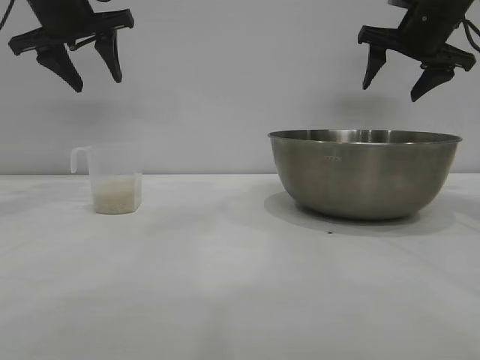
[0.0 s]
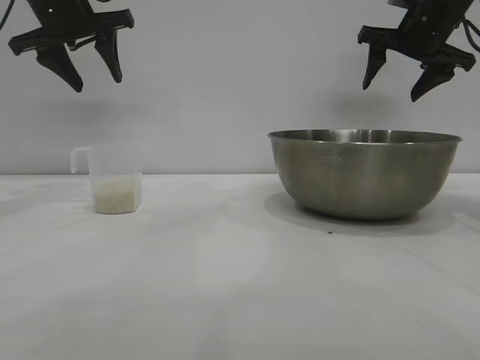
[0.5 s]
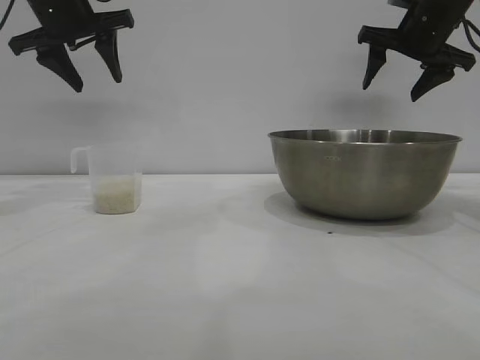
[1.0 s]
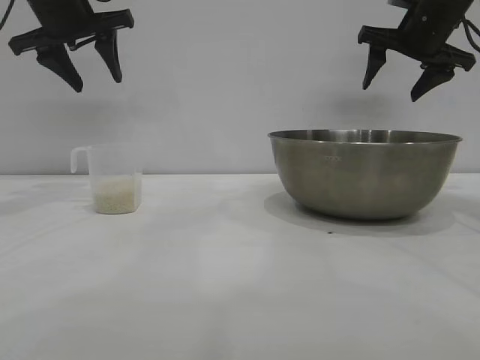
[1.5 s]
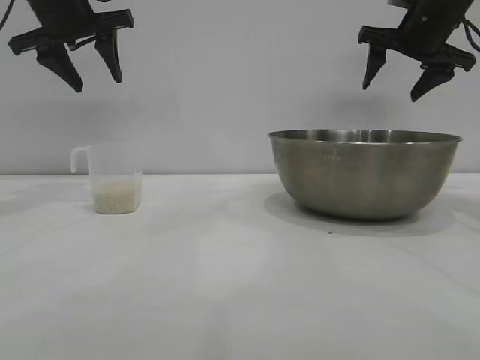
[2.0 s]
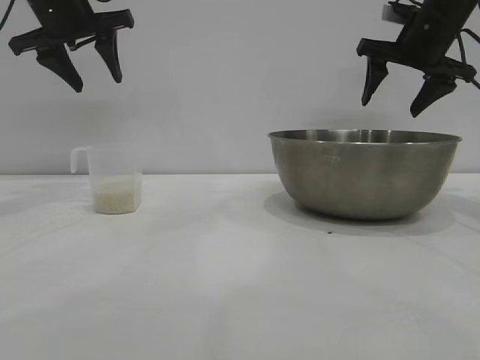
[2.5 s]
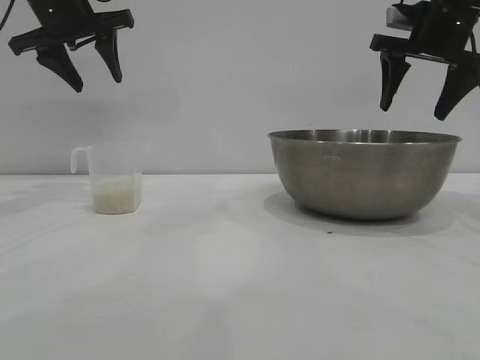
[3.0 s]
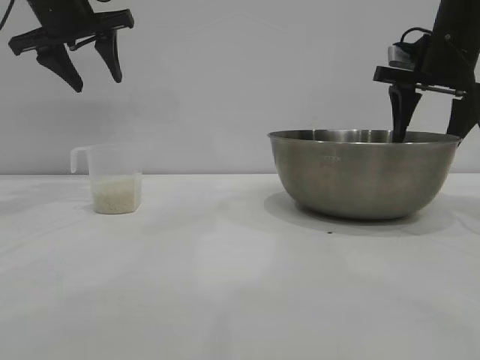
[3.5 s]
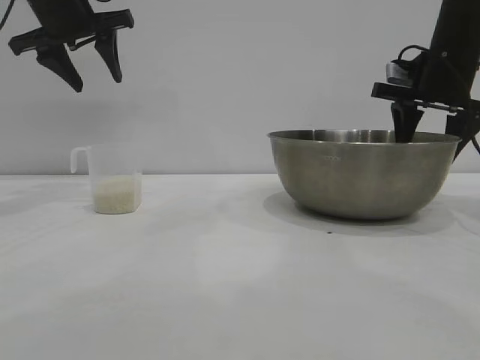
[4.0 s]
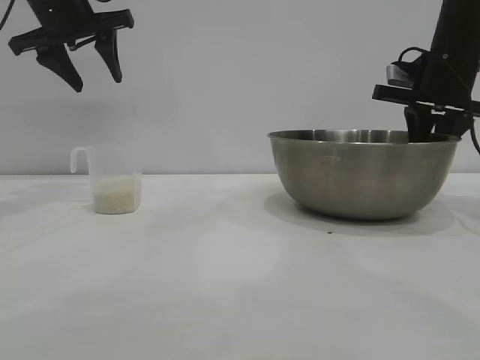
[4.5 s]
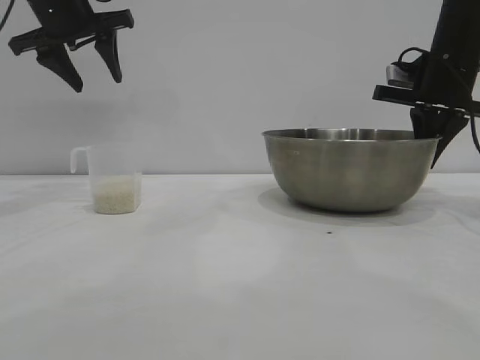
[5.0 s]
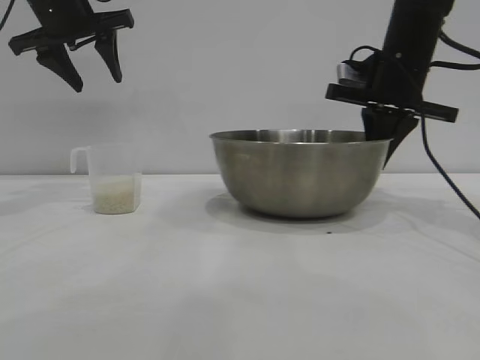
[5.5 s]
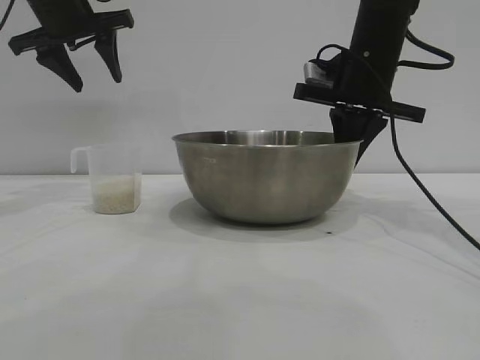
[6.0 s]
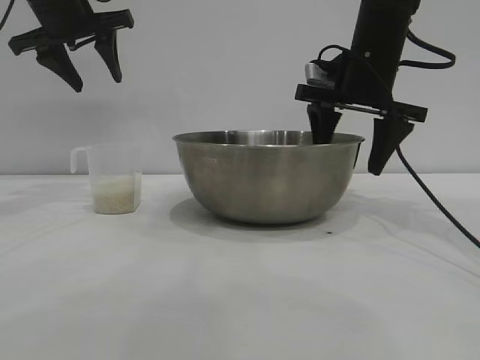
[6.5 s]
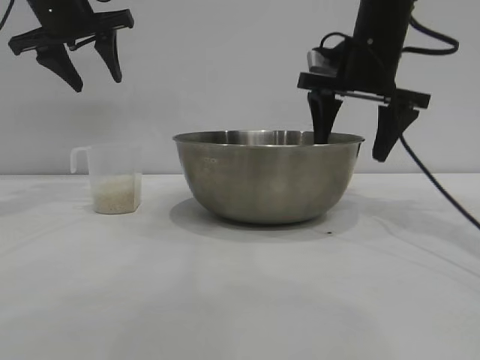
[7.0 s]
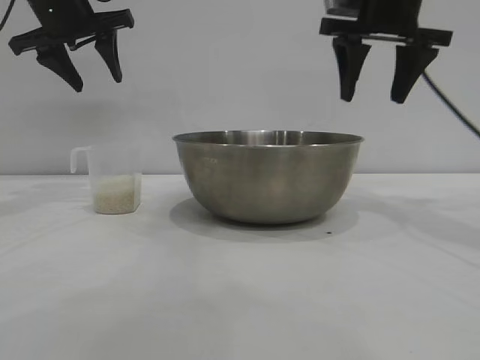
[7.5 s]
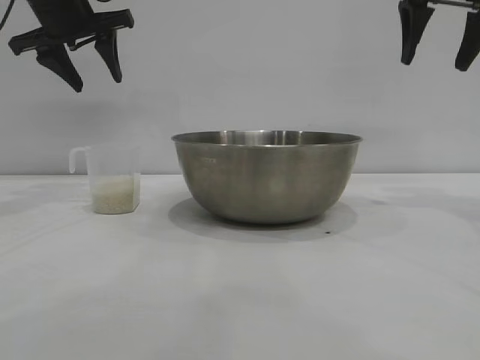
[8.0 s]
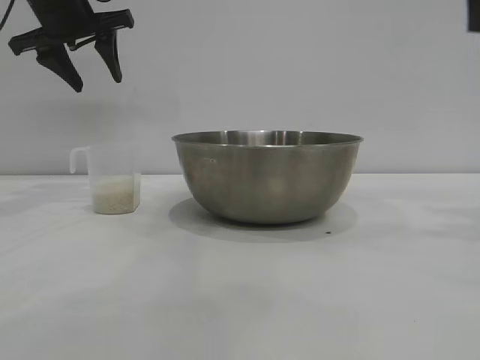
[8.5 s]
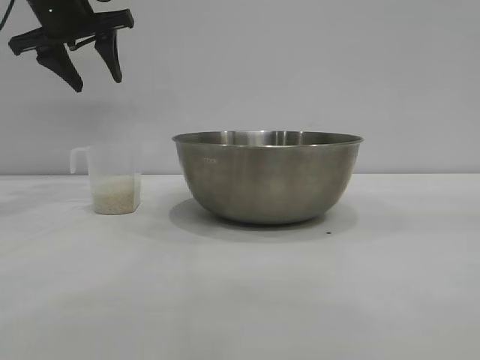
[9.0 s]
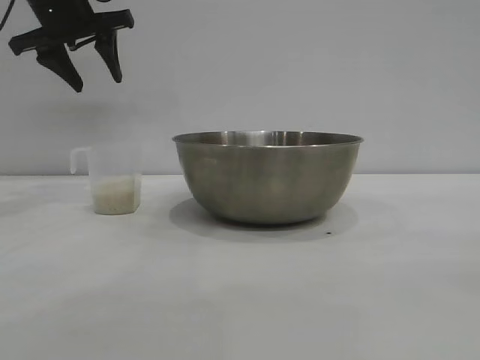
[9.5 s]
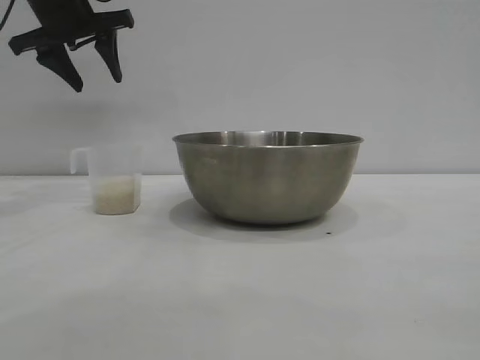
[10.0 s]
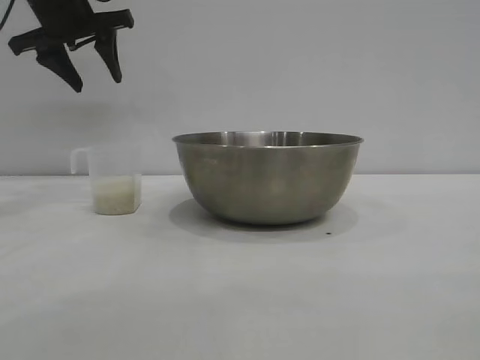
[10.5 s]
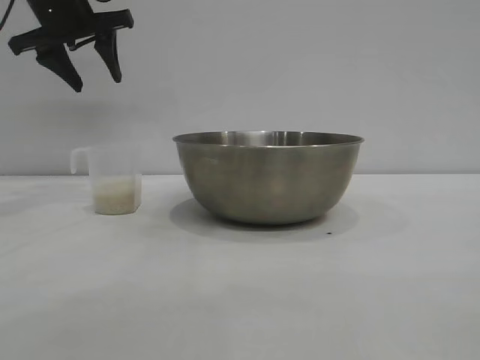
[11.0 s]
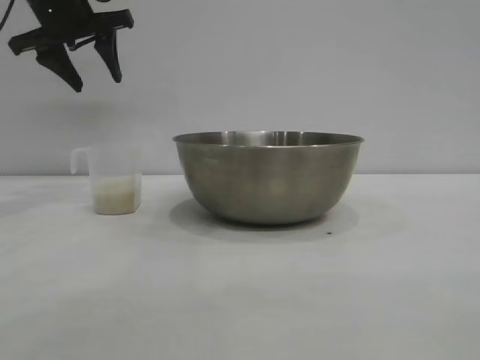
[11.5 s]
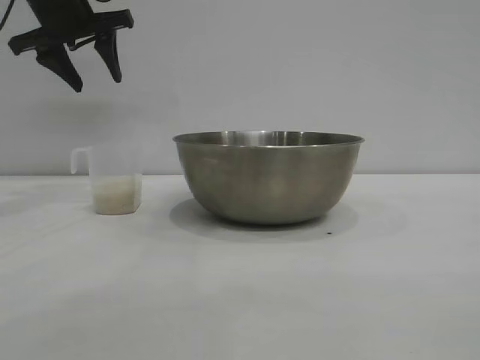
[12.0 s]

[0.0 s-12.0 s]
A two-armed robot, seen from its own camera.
Task of the whole recording: the right gripper grasp the rice container and place it in the center of the table, the left gripper grasp the rice scoop and pour the rice into the rice container.
Step, 0.0 to 7.0 s: Move the bowl to the center of view with the right gripper.

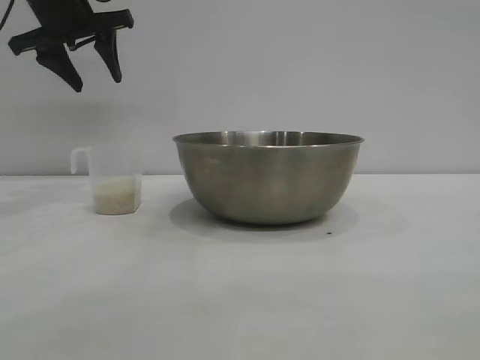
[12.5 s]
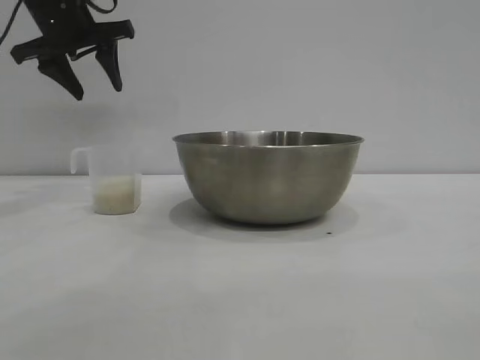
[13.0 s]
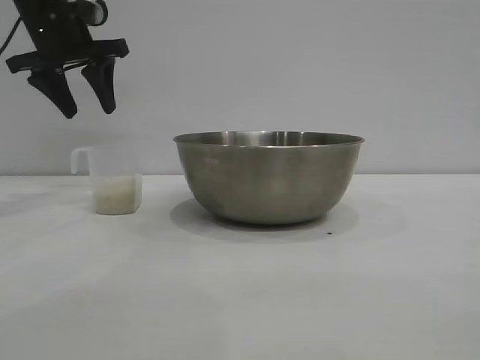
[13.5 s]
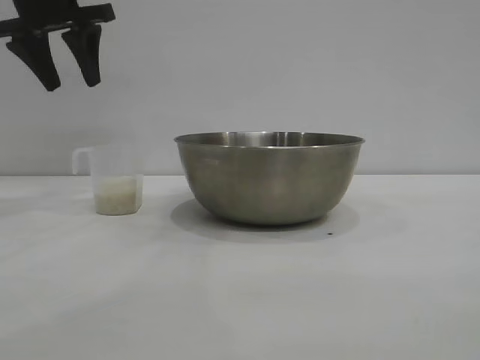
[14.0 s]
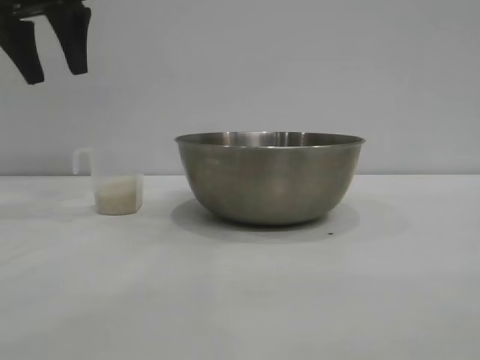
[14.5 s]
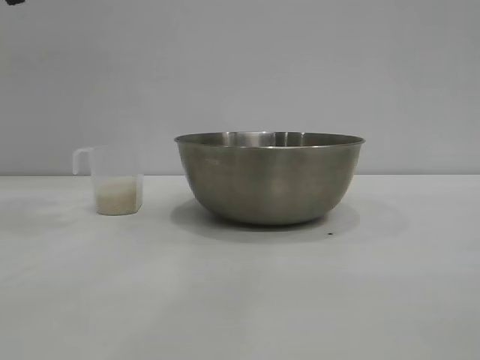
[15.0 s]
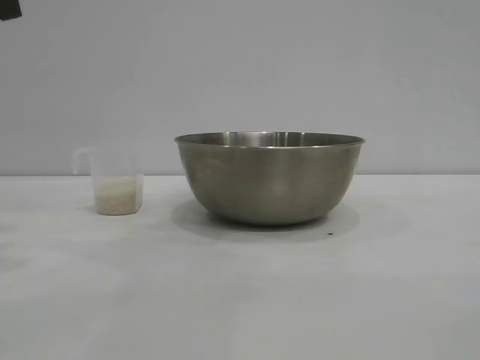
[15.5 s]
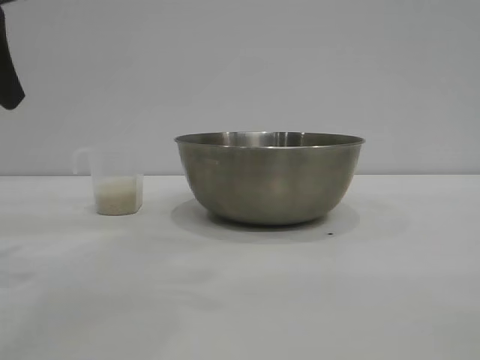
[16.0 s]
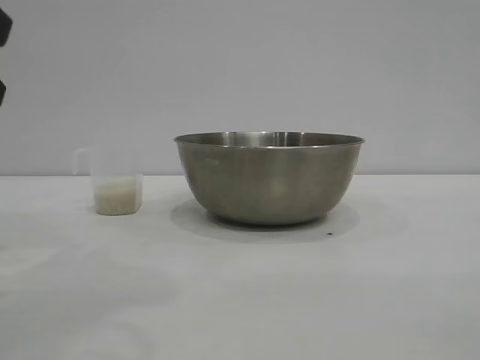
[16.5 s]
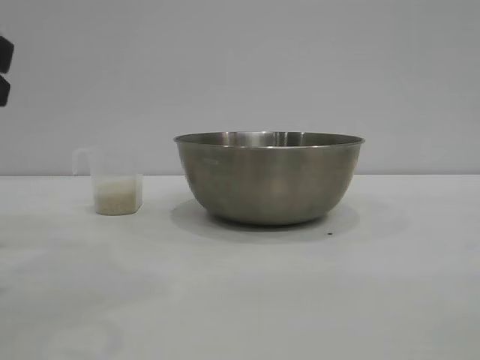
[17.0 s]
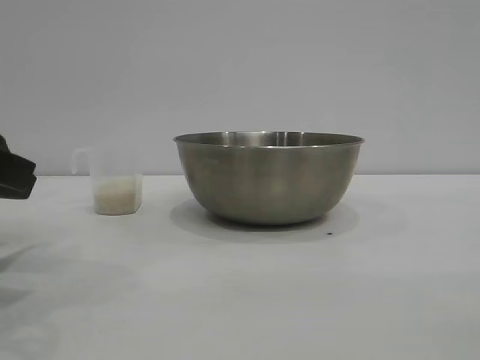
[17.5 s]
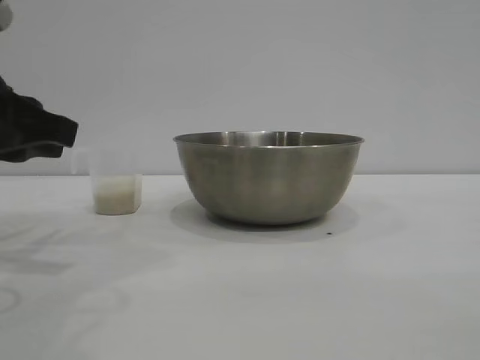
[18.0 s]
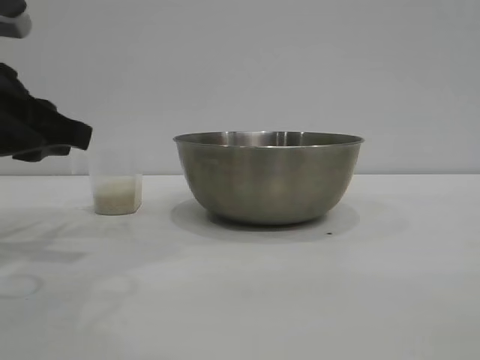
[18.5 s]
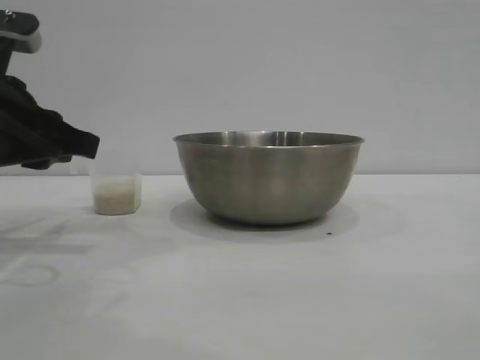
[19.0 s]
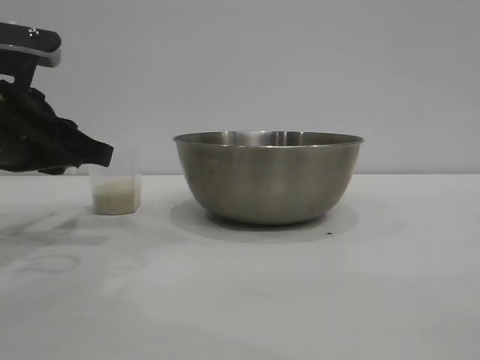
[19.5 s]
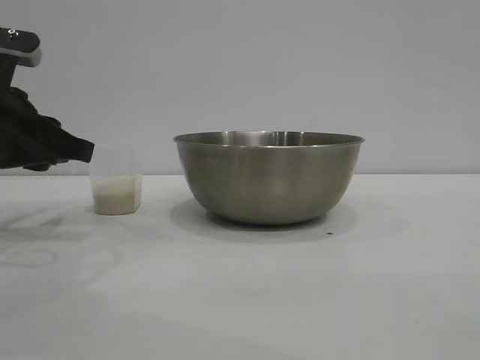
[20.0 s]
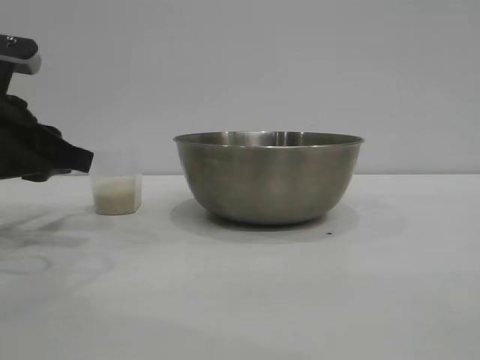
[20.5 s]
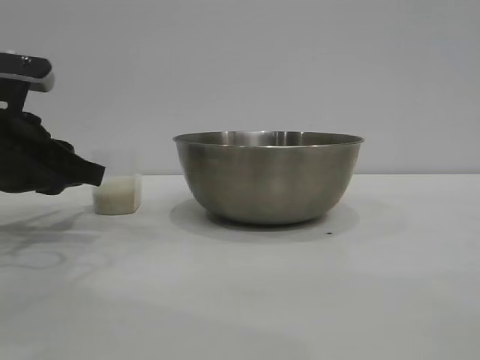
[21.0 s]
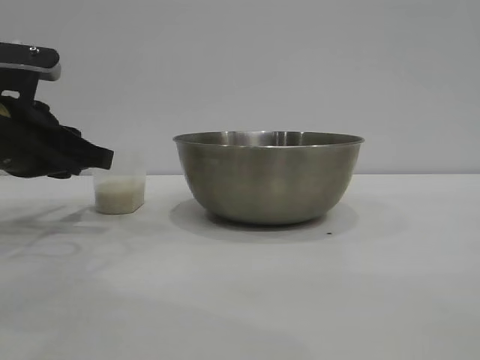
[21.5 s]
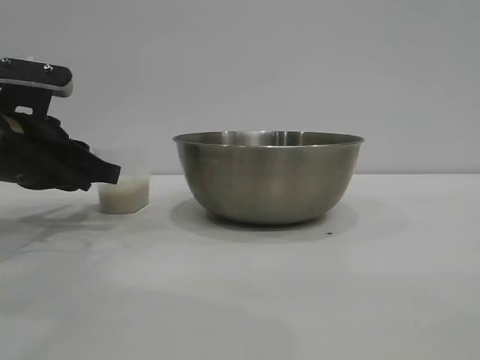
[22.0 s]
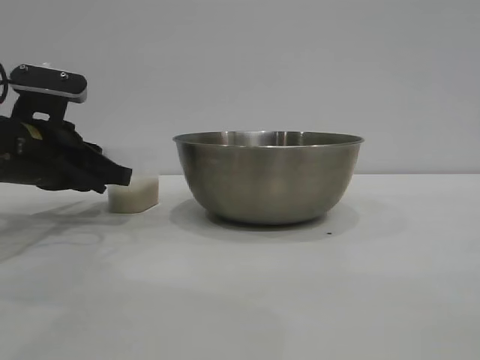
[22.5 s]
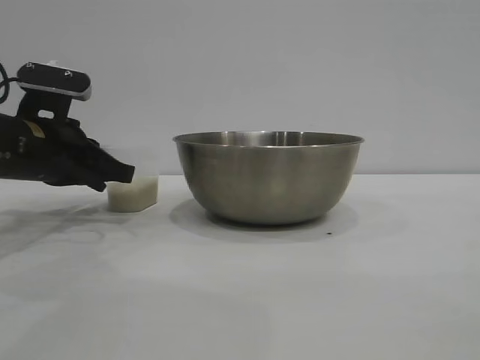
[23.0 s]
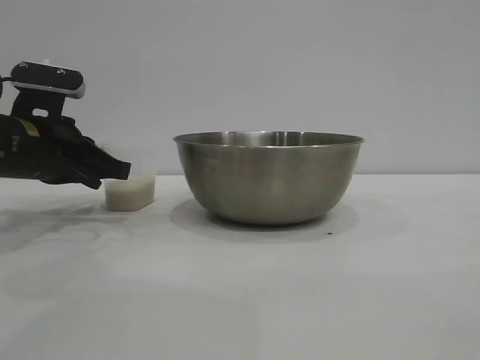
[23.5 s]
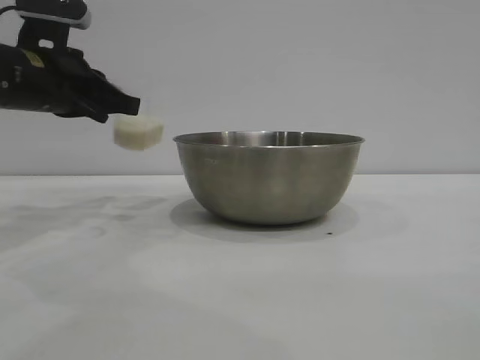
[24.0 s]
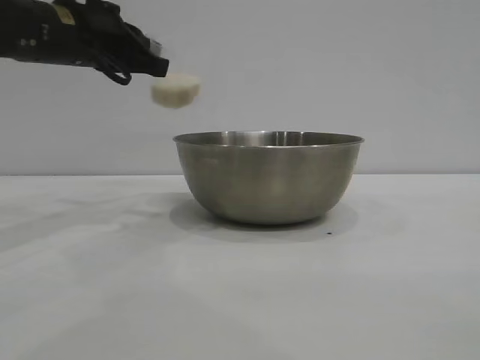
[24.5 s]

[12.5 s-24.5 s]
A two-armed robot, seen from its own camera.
Task of the whole recording: the right gripper grasp the rice container and place it in the center of the table, the left gripper grasp the rice scoop and pour the rice into the rice container.
Step, 12.5 to 24.0 s: Pick up the cup with rice in it with the left gripper.

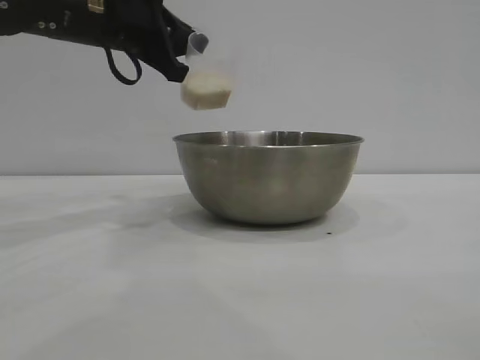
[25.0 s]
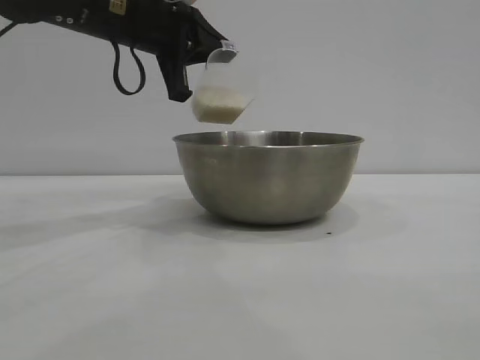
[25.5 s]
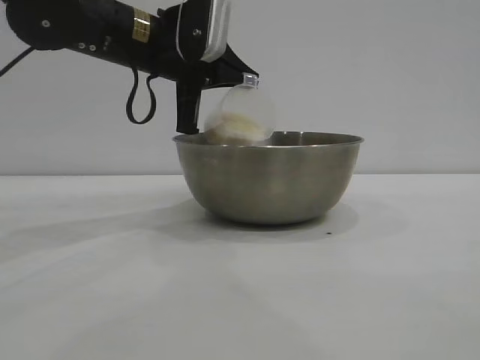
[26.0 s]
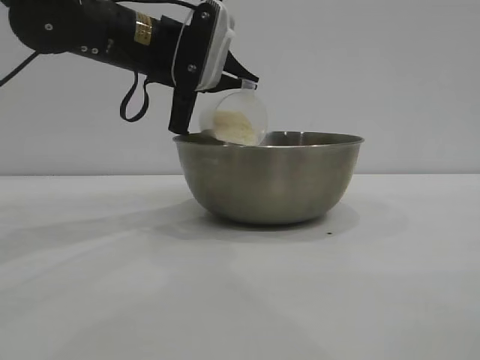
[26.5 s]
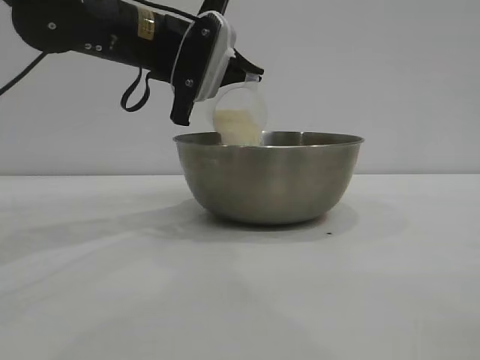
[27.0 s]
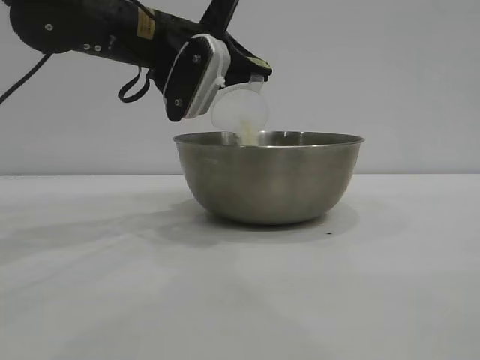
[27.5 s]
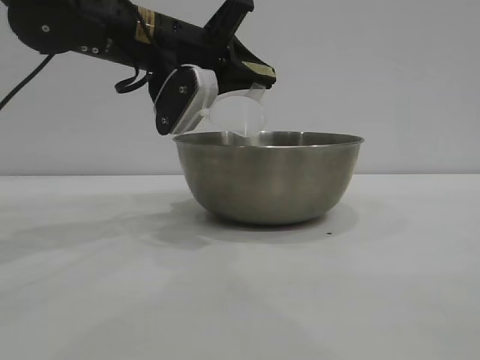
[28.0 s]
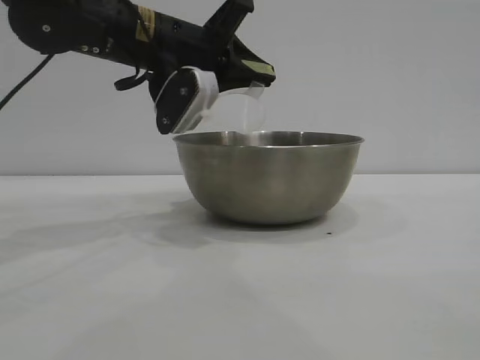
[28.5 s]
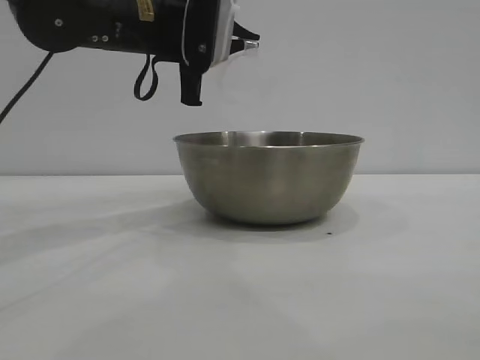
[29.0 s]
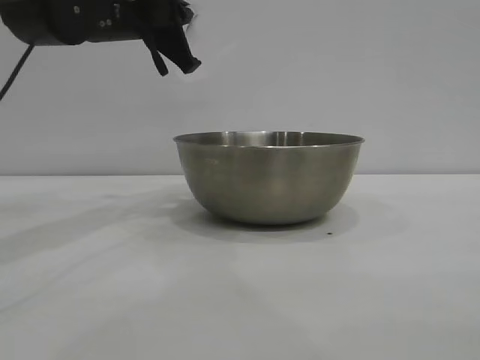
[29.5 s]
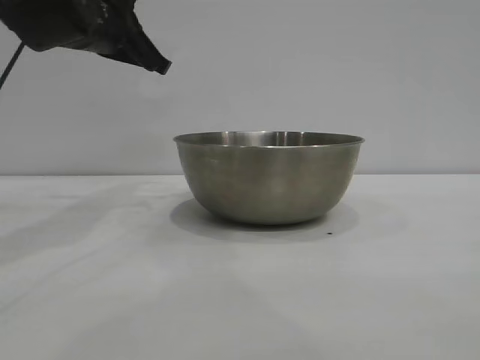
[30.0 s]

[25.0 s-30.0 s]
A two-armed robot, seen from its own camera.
Task of the whole recording: the right gripper grasp the rice container and place it in the center of the table, the left gripper grasp the rice scoop and pour the rice into the rice container.
Step, 25.0 to 29.0 s: Pour the rice from the cup into the bowl with the left gripper.
